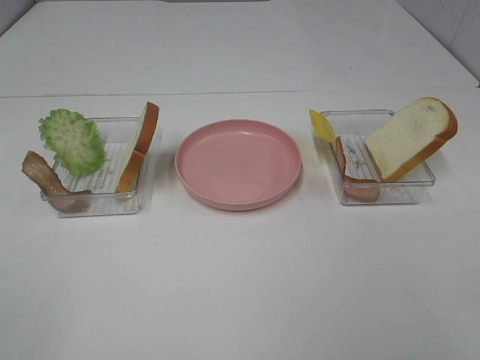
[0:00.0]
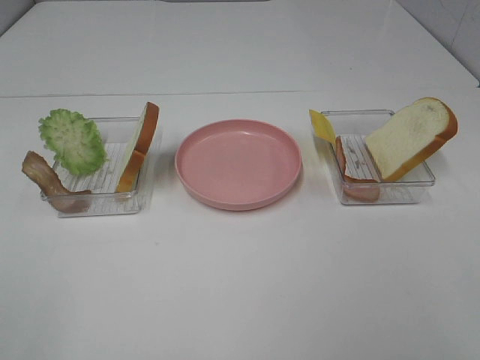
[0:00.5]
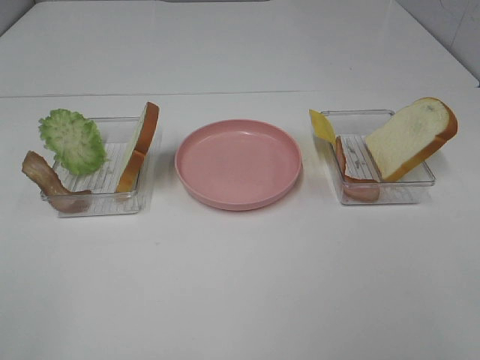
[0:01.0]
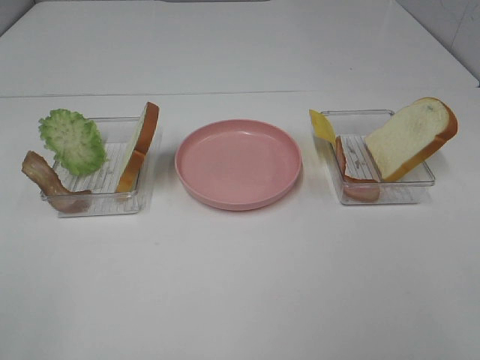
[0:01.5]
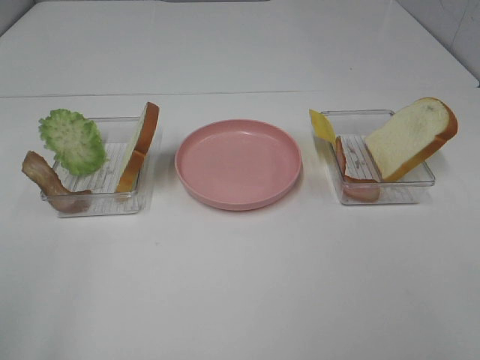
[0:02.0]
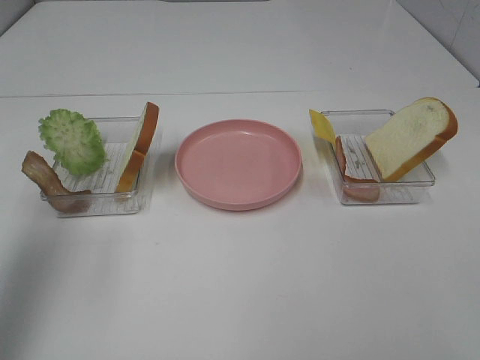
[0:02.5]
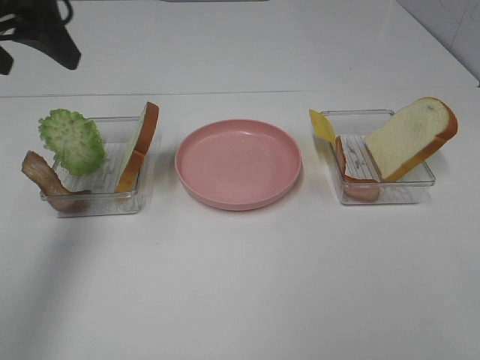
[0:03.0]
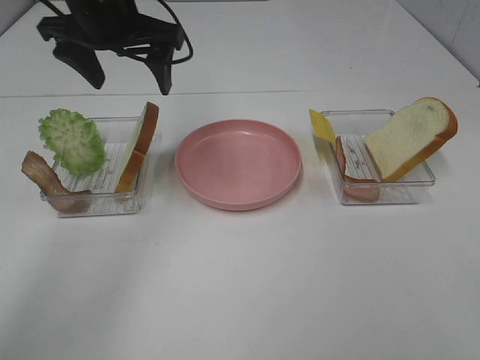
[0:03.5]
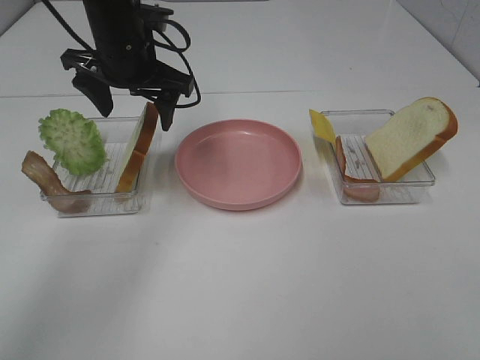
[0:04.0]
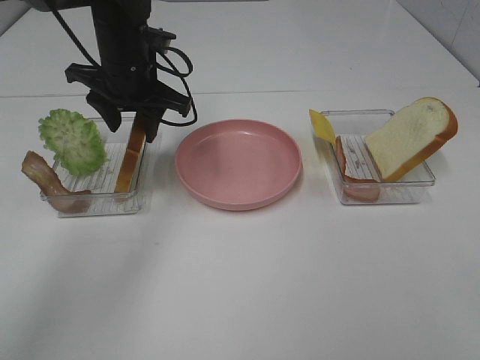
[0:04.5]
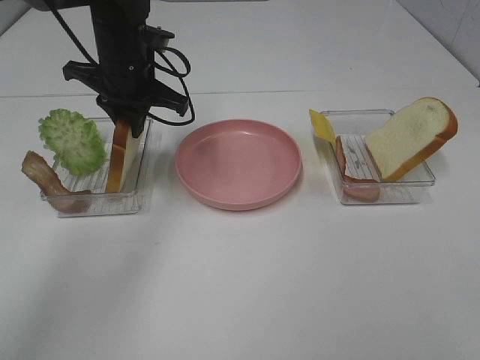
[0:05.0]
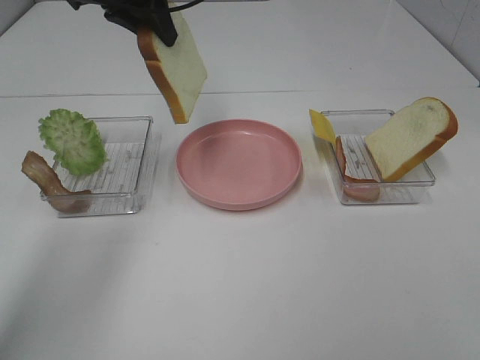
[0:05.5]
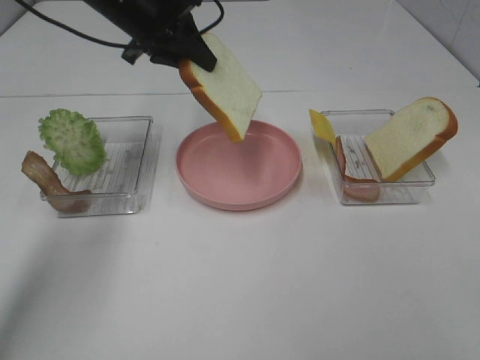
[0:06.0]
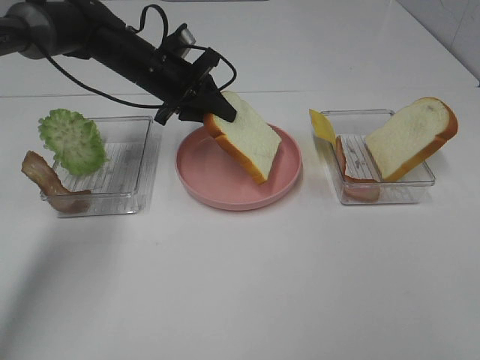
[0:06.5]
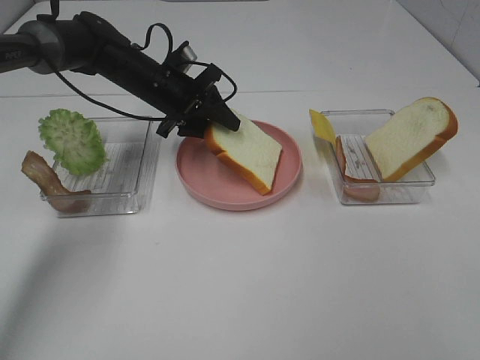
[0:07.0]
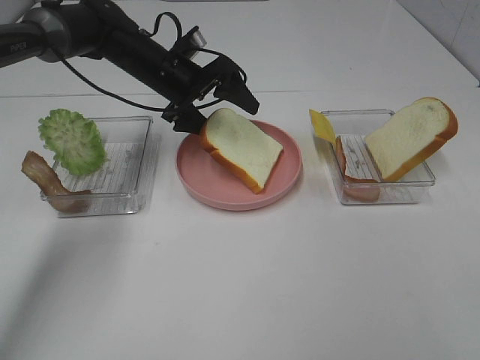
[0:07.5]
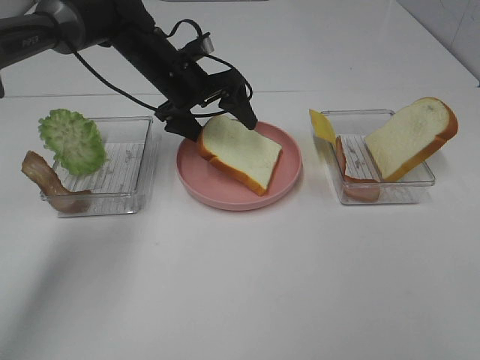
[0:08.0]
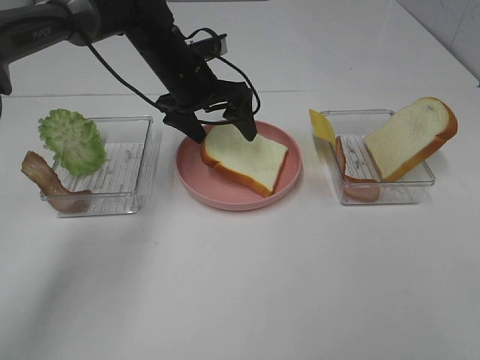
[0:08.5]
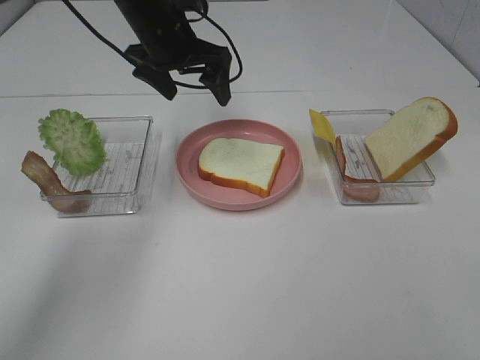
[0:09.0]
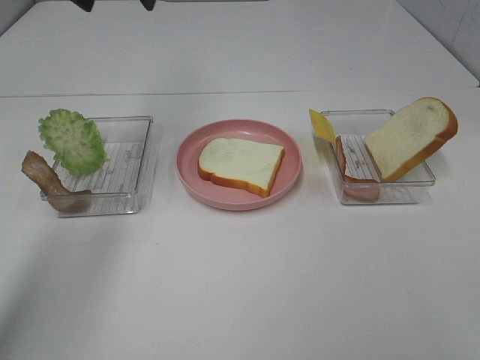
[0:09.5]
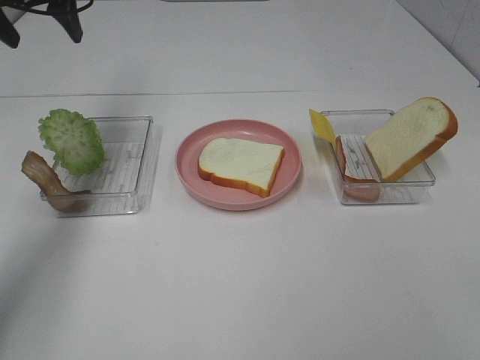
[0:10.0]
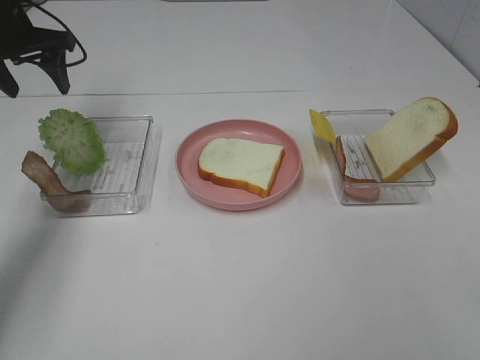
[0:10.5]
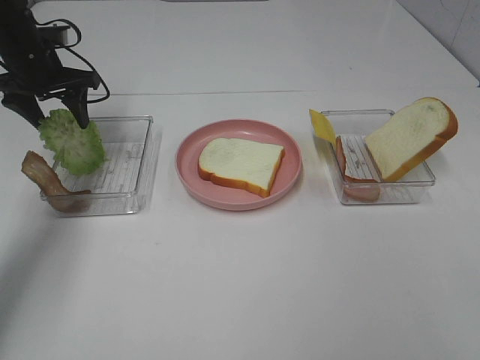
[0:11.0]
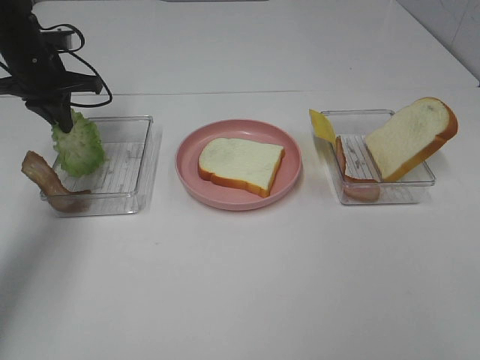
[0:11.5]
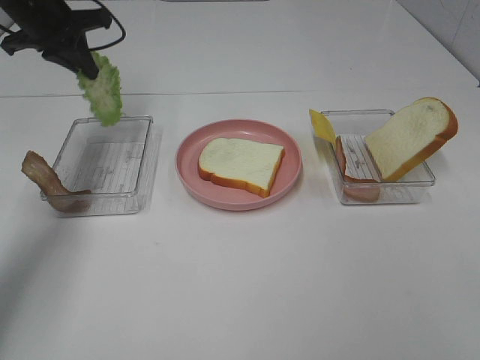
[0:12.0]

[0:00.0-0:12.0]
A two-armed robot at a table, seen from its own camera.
Task of the whole recording: Make sandwiches.
Step, 0:00.0 to 0:04.5: Left hand:grab the bread slice.
Step, 0:05.0 to 0:08.5: Left hand:place the bread slice on the plate.
Step, 0:09.0 to 0:11.0: Left hand:grab the lettuce slice.
0:02.0 to 0:04.0: The left gripper moves forward and to the right, approximately 40 cm.
0:04.0 to 0:06.0: The left gripper moves some 10 cm upward and comes back, and closes up.
0:06.0 to 0:08.0: The left gripper moves downward, approximately 10 cm, and opens its fingers.
0:08.0 to 0:10.0: The left gripper heads to the left and upward, covering about 25 cm.
0:10.0 to 0:12.0: The left gripper heads downward, covering about 5 cm, and closes its fingers.

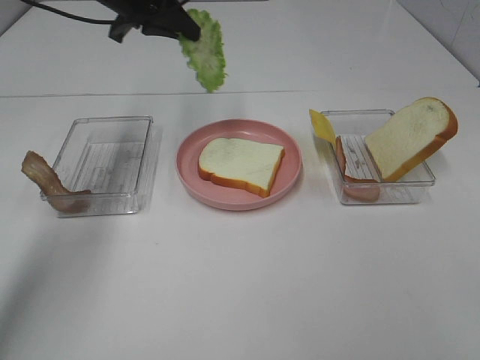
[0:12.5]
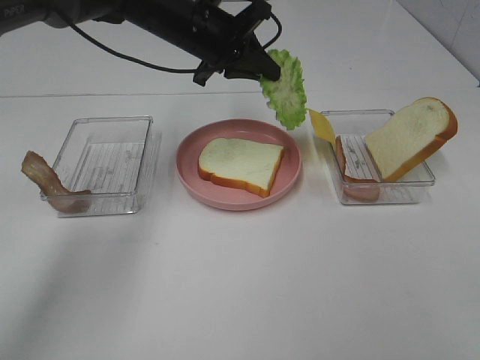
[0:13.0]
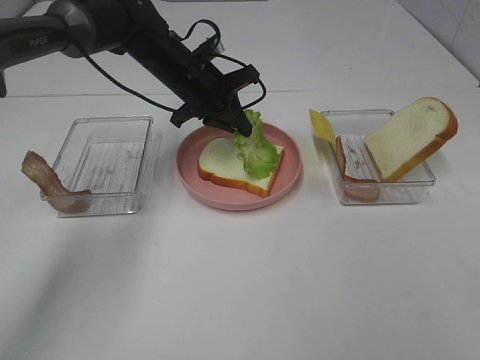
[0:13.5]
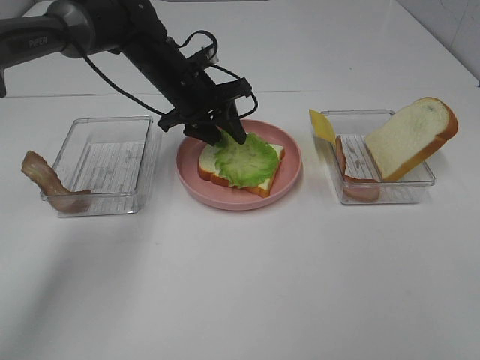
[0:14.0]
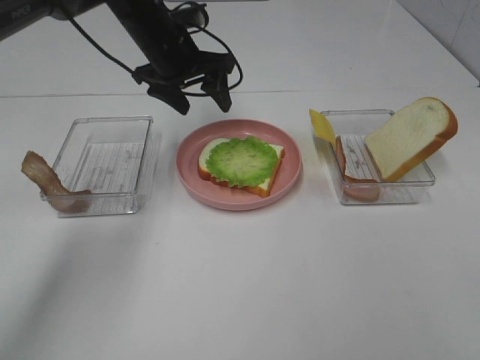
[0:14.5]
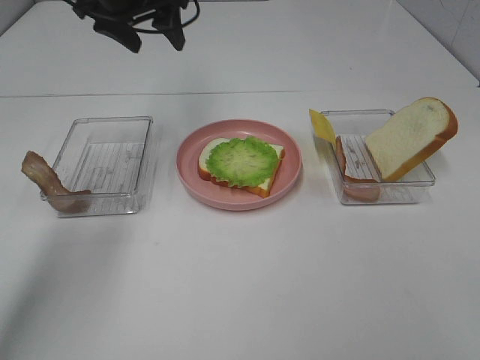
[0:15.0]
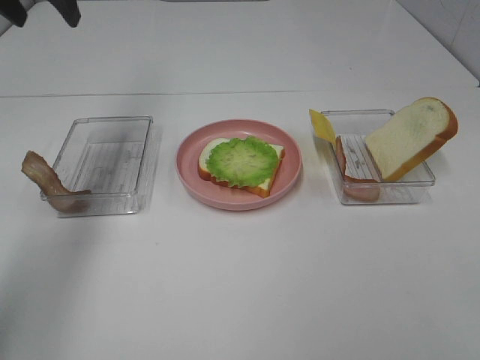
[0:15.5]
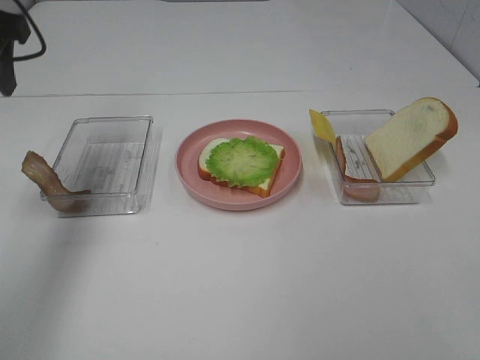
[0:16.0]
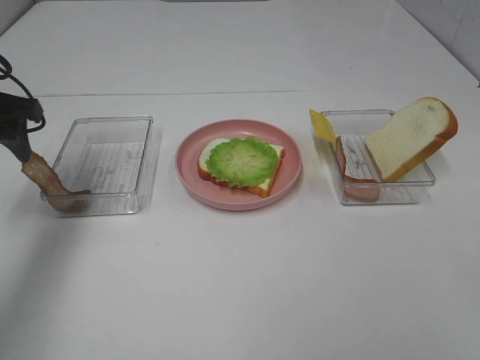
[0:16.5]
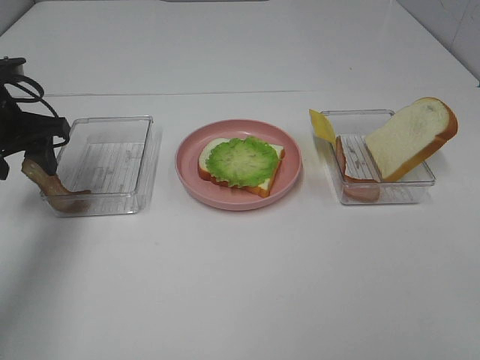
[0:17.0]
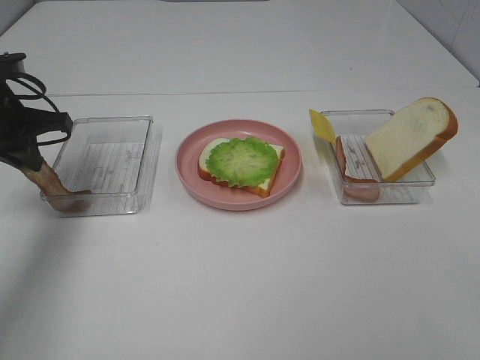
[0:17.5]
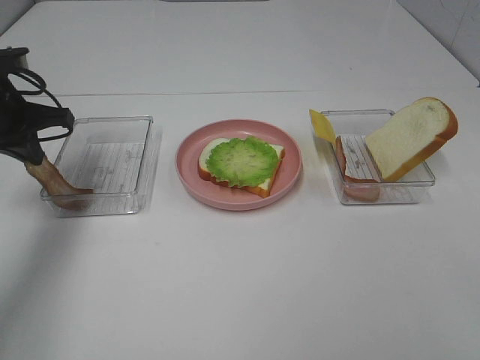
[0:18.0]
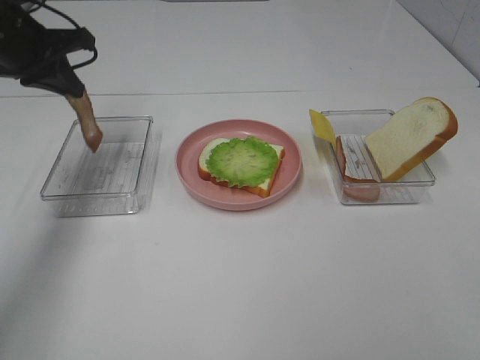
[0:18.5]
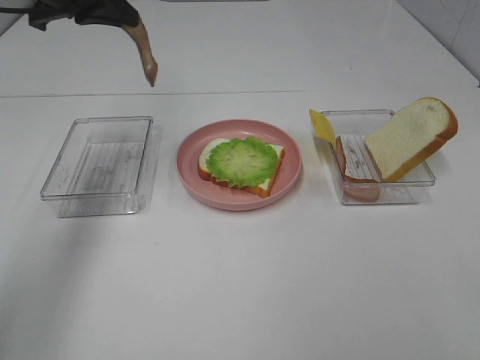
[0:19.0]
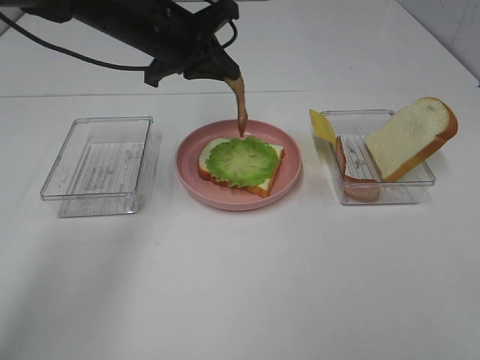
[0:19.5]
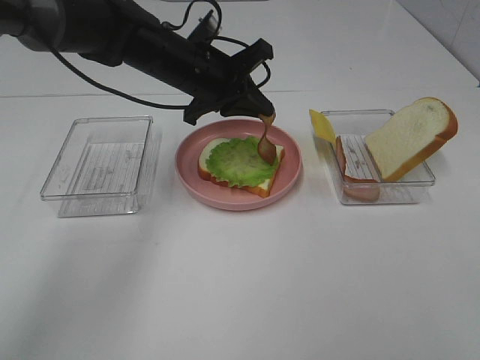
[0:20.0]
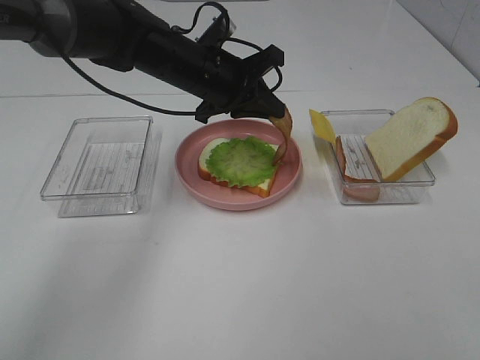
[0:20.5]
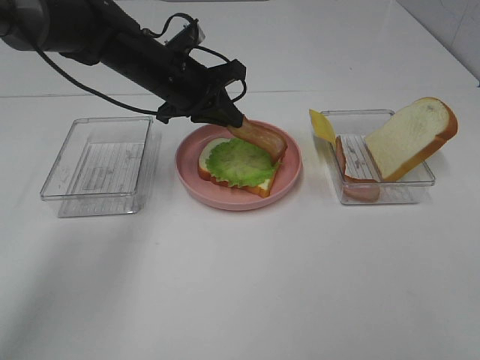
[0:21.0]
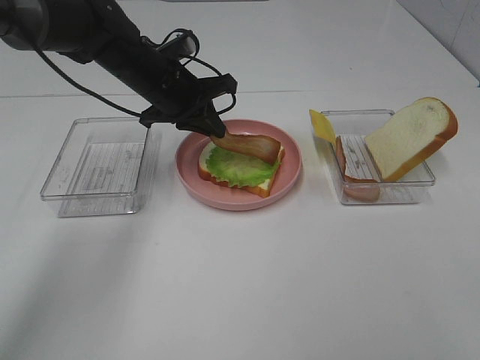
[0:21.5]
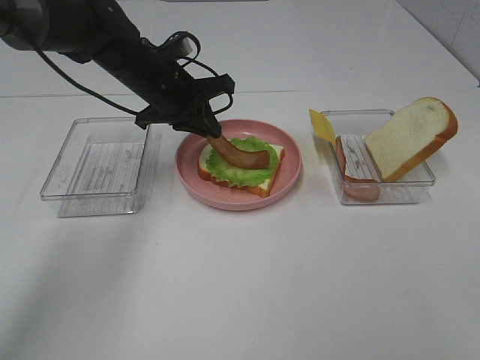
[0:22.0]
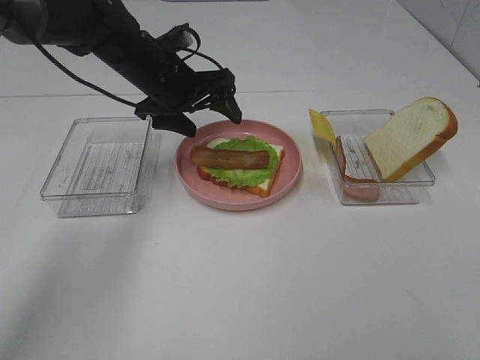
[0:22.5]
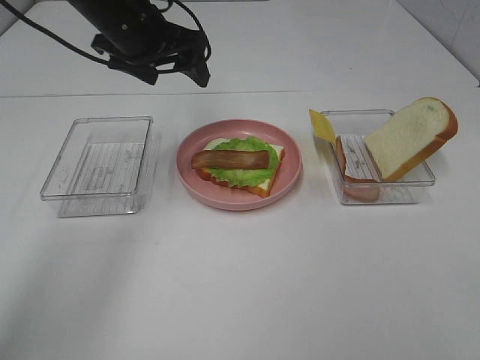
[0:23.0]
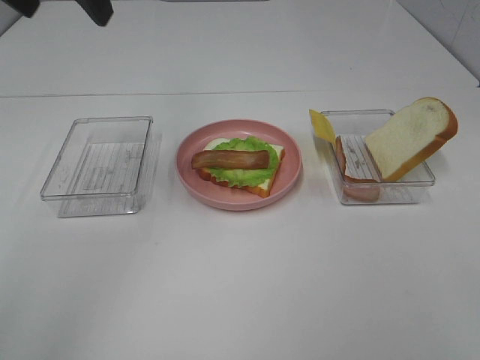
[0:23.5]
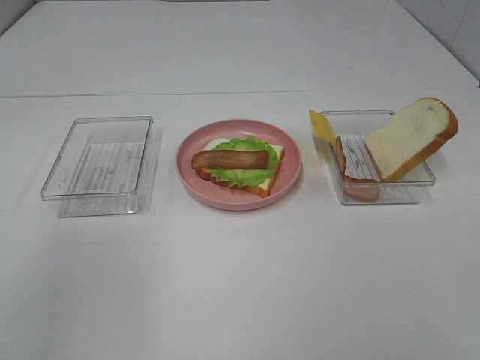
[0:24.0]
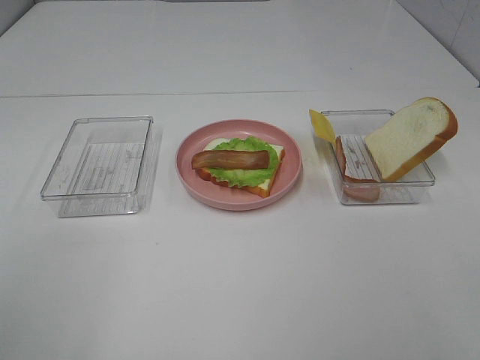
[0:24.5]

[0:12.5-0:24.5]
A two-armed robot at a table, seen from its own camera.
Task of the whole recording: Make sandwiches.
Step, 0:12.5 to 0:14.0: Left hand:place the lettuce slice on the bread slice.
Step, 0:14.5 to 0:17.5: Left hand:grab the bacon.
Step, 0:18.0 to 0:22.5: Left hand:place bacon on lettuce slice.
0:12.5 to 0:14.5: The left gripper moves downward, some 5 cm, and opens its fingers.
0:14.5 to 0:16.5: The left gripper shifts some 25 cm to the left and backward.
0:16.5 to 0:18.5: The left gripper travels forward by about 5 cm, and closes.
0:18.5 to 0:20.5: The left gripper heads to the right, covering some 20 cm.
0:20.5 to 0:22.5: The left gripper travels to the left by roughly 5 cm, and opens its fingers.
0:22.5 to 0:24.5: The left gripper goes about 50 cm backward, to the left and upward.

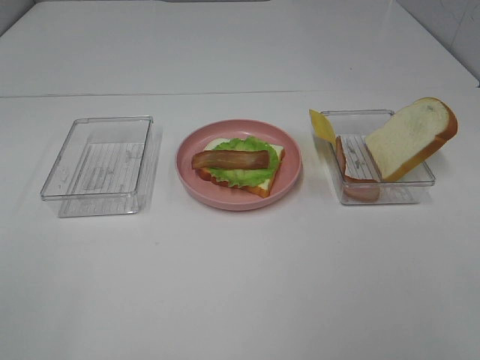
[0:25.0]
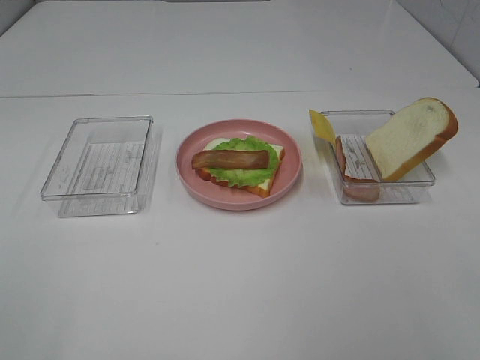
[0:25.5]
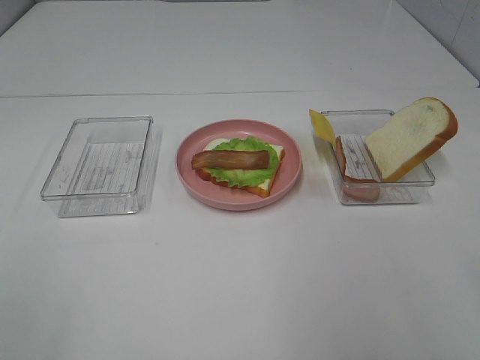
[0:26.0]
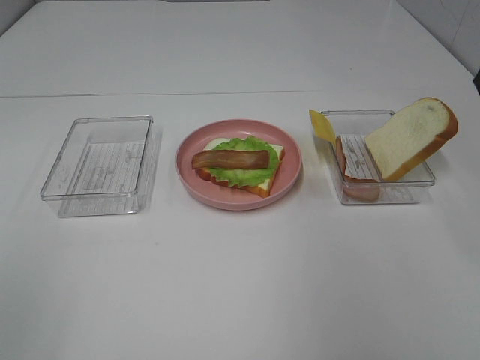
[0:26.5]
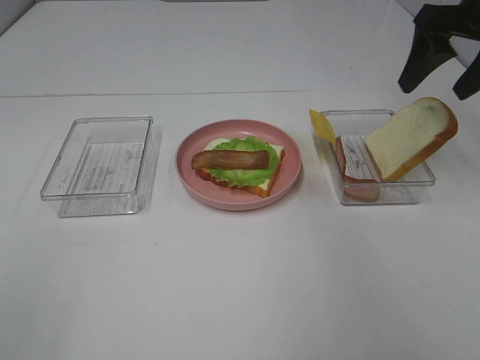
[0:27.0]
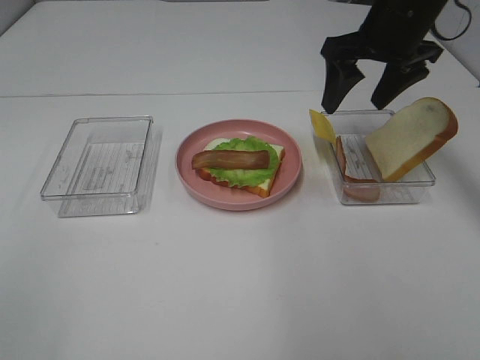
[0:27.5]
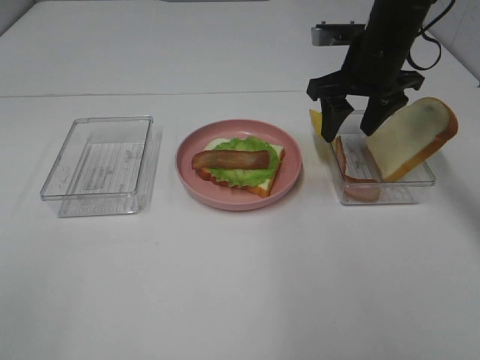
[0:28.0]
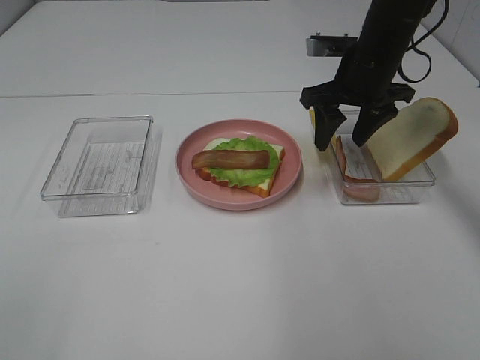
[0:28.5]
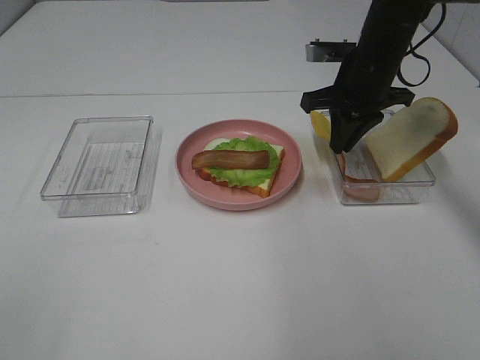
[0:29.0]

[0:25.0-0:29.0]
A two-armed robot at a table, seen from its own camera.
Task of the whole recording: Make sandwiches.
Step, 0:25.0 to 0:29.0: Right hand:grab the bacon.
0:25.0 to 0:27.0: The right gripper travels forward by approximately 40 cm.
0:27.0 to 0:29.0: The right gripper travels downward and to the left by approximately 15 cm, and closes.
